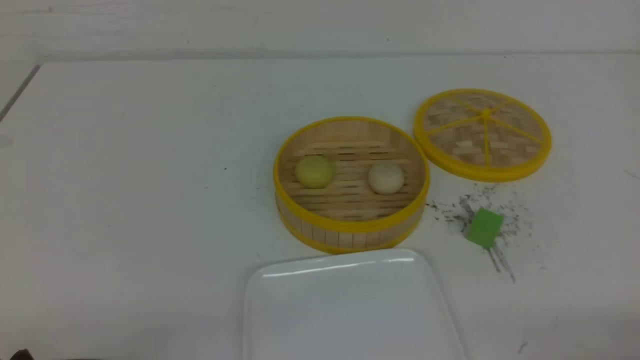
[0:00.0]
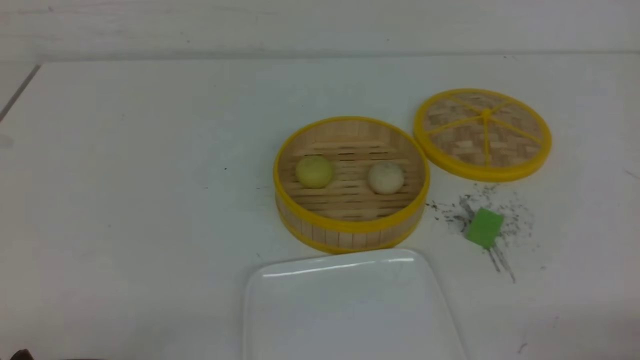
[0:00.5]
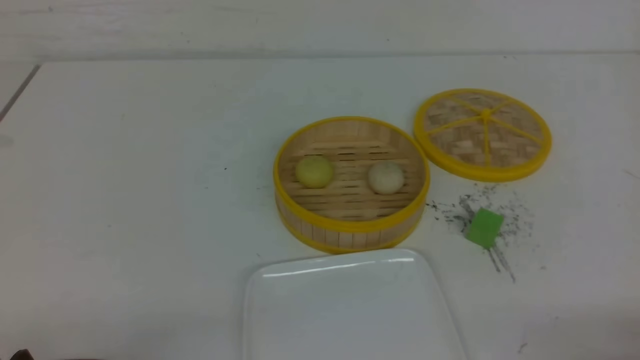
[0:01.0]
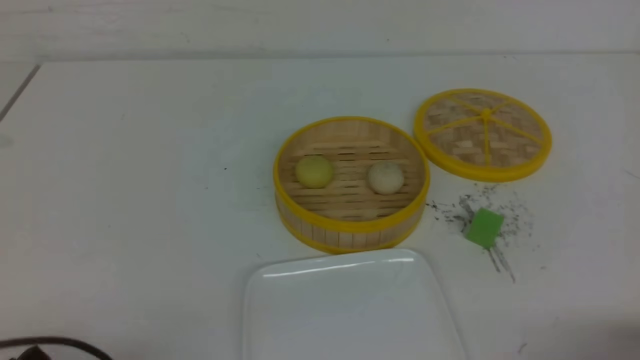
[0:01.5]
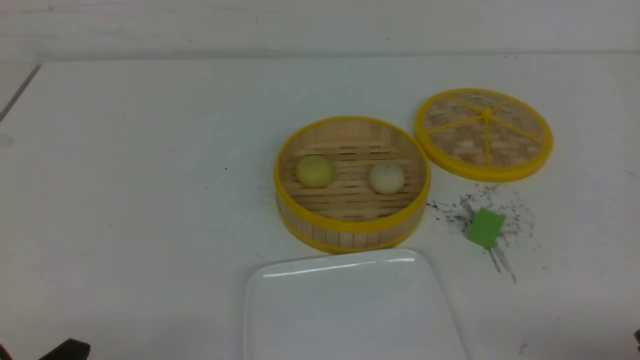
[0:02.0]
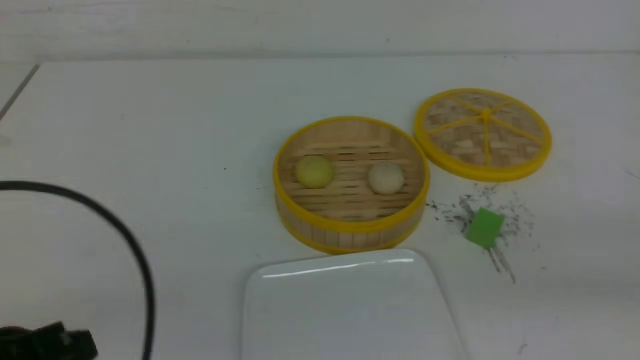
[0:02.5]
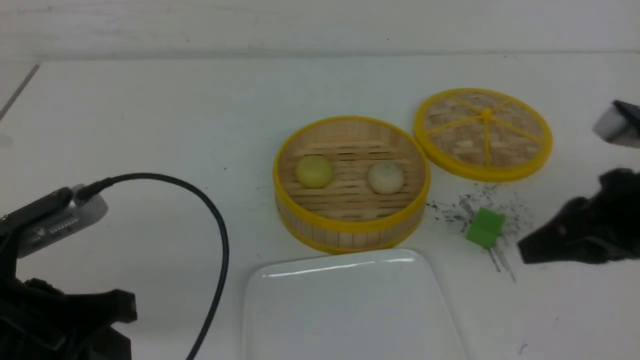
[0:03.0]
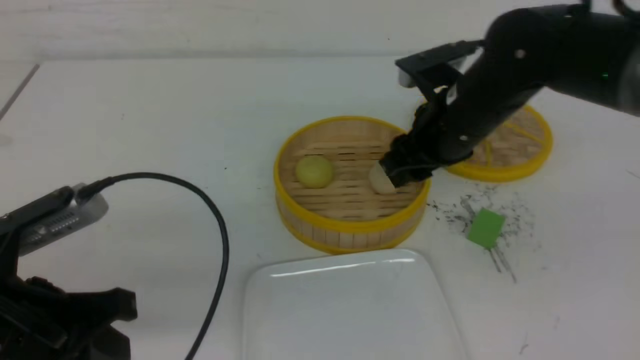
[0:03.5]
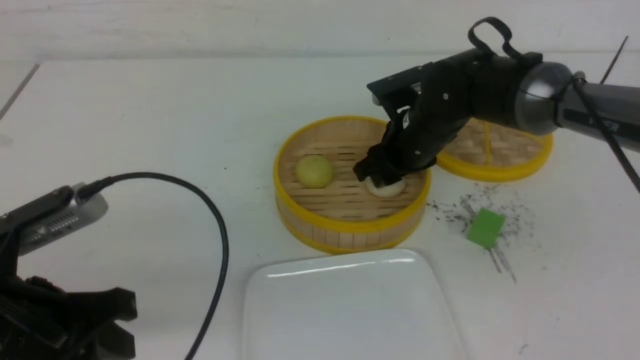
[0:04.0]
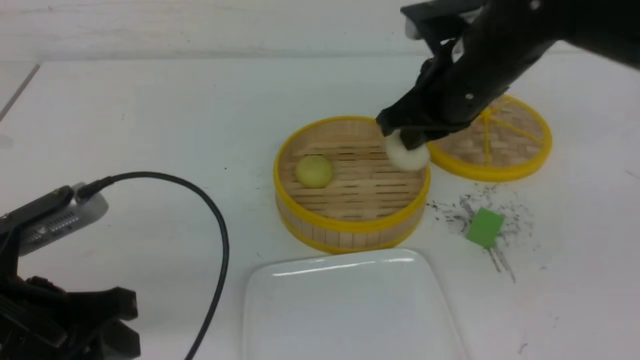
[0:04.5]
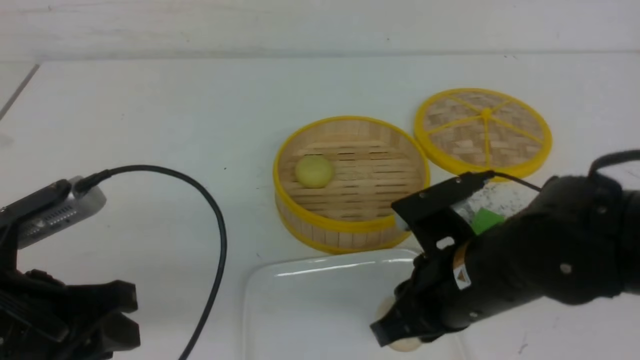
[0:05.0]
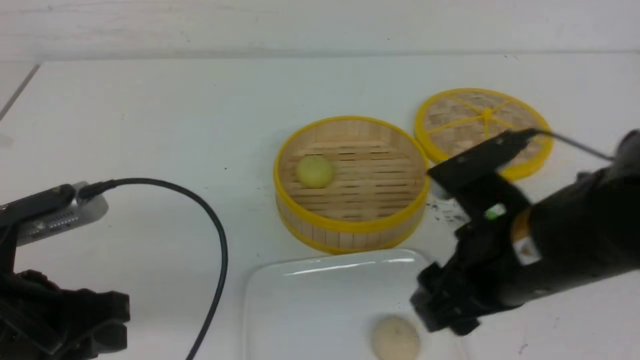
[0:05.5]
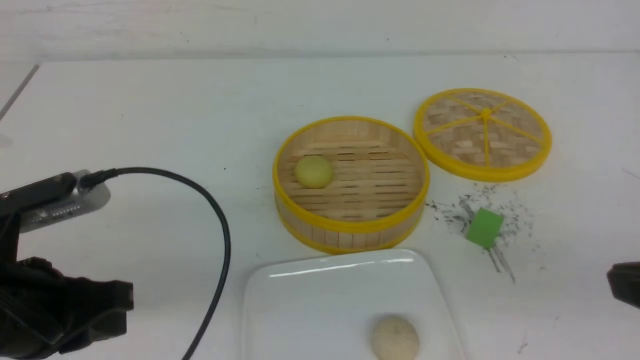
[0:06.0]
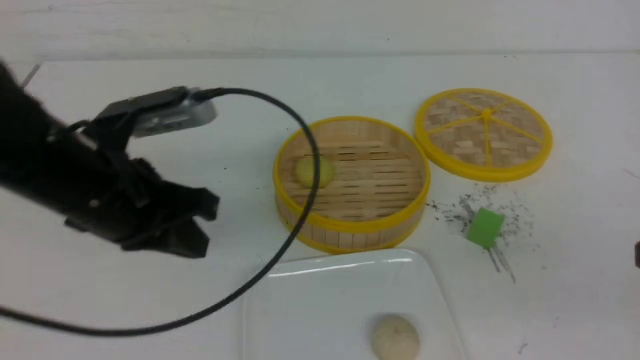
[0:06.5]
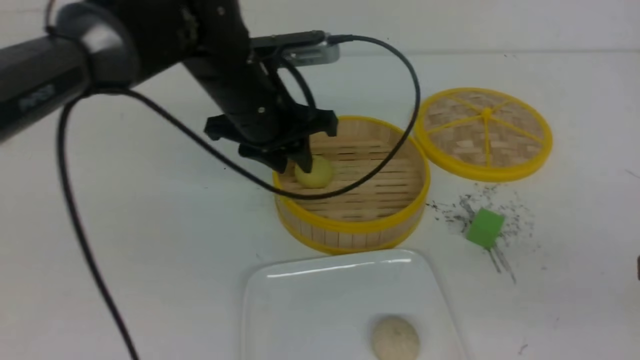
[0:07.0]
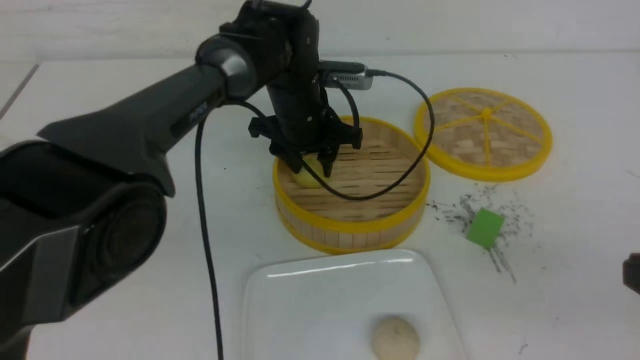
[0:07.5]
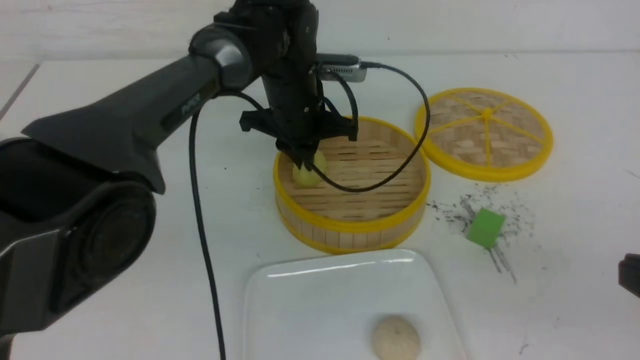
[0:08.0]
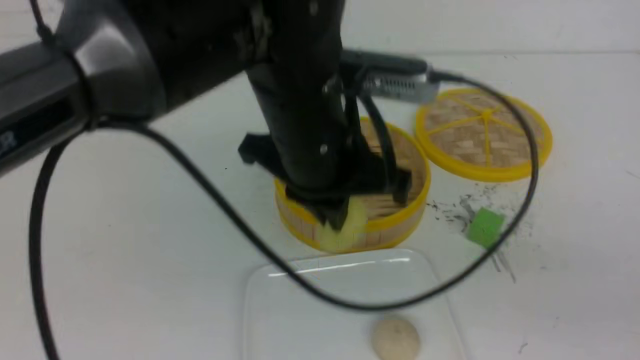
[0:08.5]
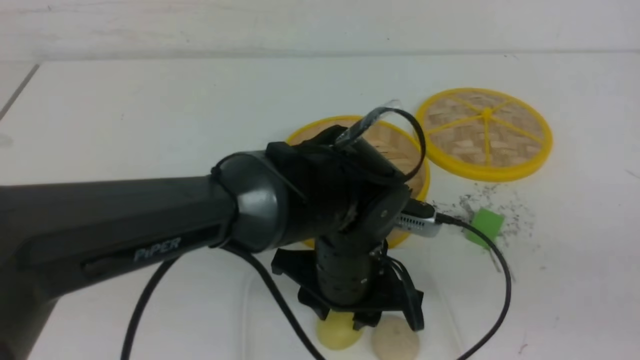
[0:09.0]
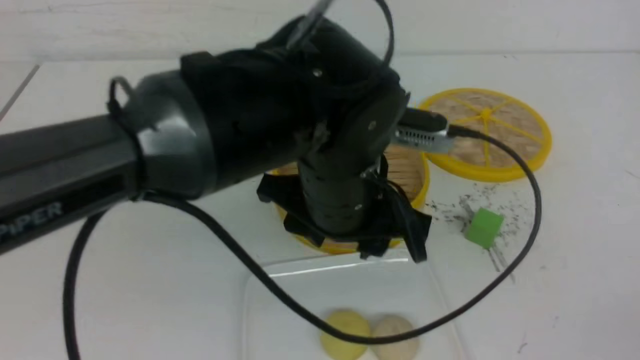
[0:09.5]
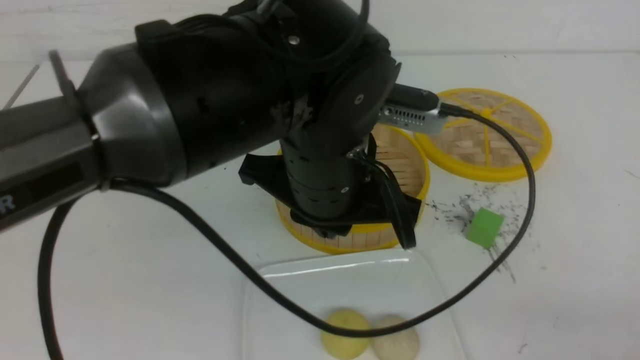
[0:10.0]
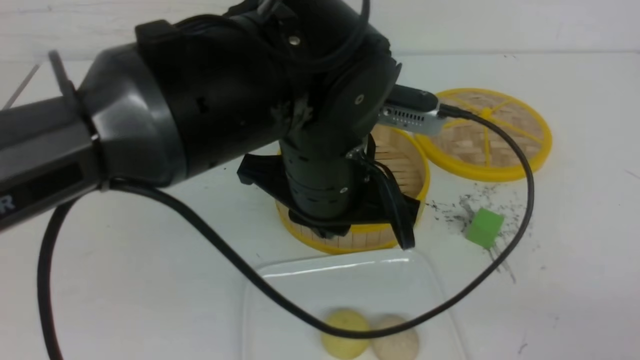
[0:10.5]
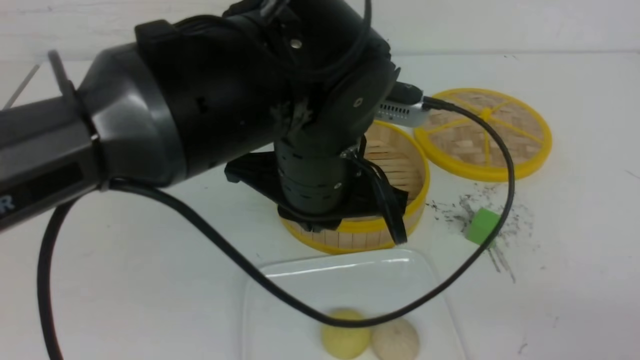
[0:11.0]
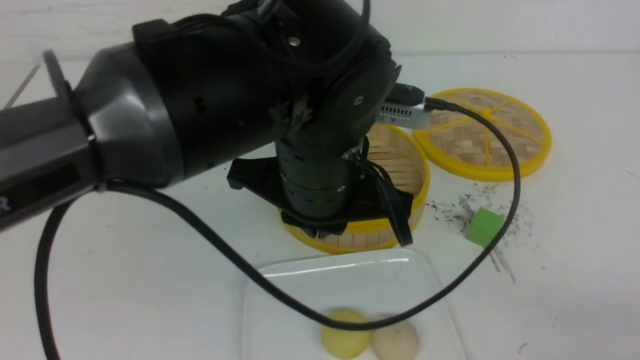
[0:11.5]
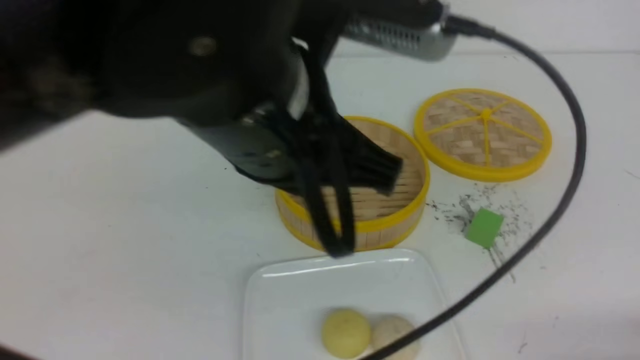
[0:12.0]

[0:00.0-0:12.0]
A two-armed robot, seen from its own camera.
Step, 0:00.0 to 0:04.0: use the right arm to grab the steamed stuffed bun that is closest to it.
Step, 0:04.5 to 0:05.0: use the right arm to put the steamed stuffed bun into the plate.
Step, 0:05.5 to 0:07.5: use the left arm to grab the steamed stuffed bun that is closest to it.
Step, 0:08.0 to 0:09.0: use the left arm to put the steamed stuffed bun into the plate.
0:02.0 to 0:04.0: The right gripper goes roughly 40 cm forward and to the left, and closes and opens again; the left gripper travels forward and upward by some 10 cm, and closes and opens again.
0:04.0 to 0:06.0: The right gripper travels backward and to the right by about 35 cm, and closes.
0:06.0 to 0:08.0: The left gripper heads forward and to the right, covering some 35 cm, and opens, then closes again.
0:08.0 to 0:10.0: The right gripper heads backward, covering about 5 cm; the left gripper moves backward, approximately 20 cm, and opens and closes again.
0:10.0 to 0:12.0: The left gripper shifts roughly 10 cm upward and backward; the right gripper travels downward by roughly 10 cm.

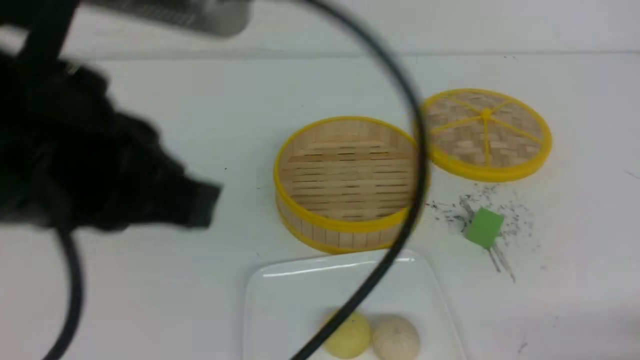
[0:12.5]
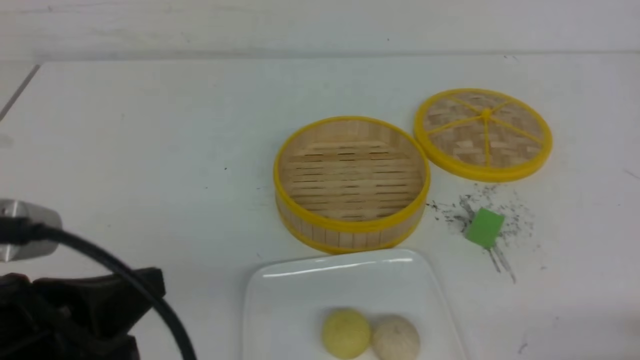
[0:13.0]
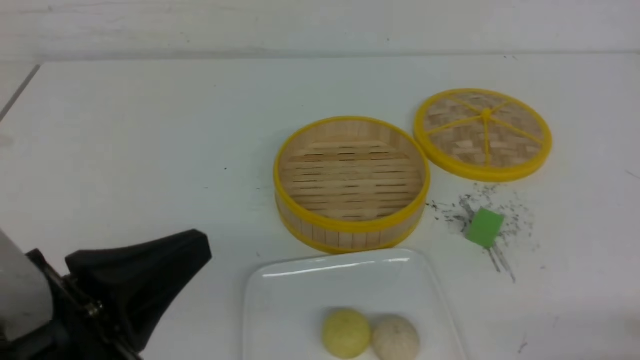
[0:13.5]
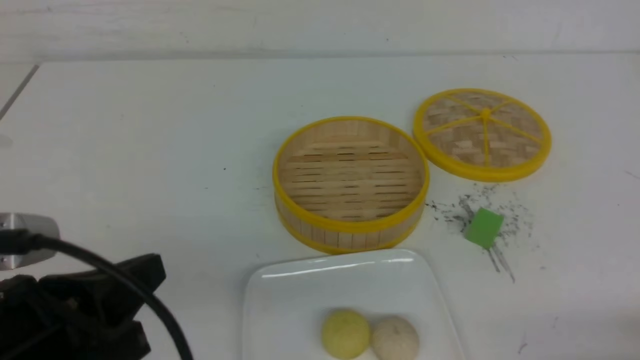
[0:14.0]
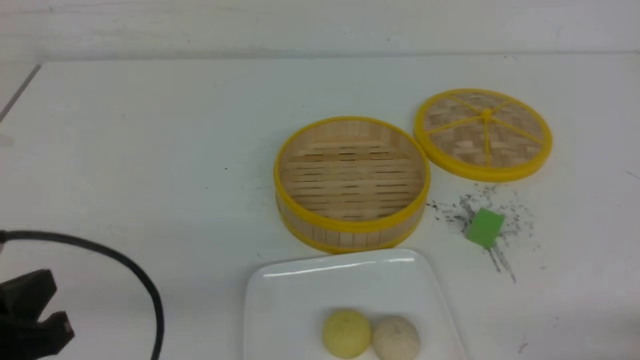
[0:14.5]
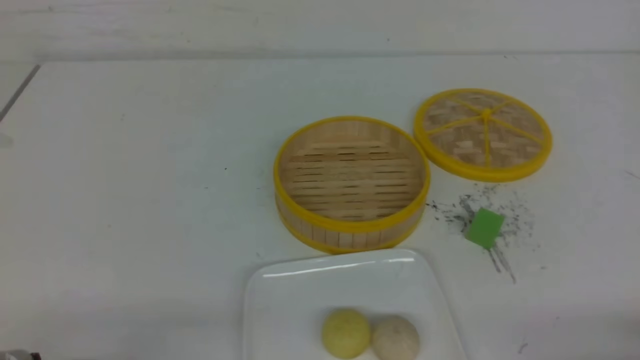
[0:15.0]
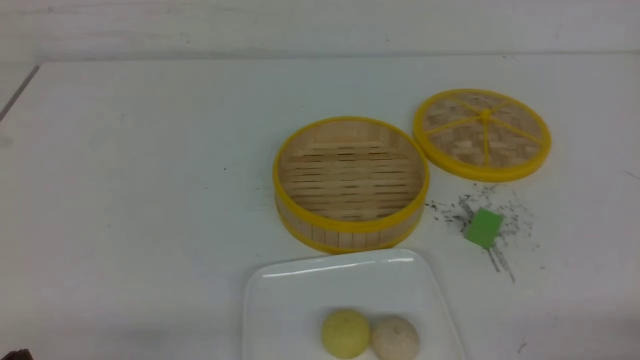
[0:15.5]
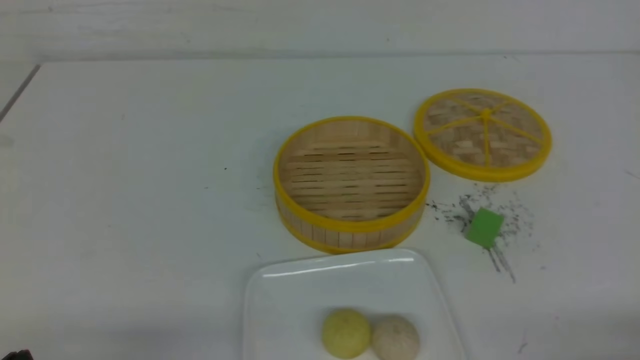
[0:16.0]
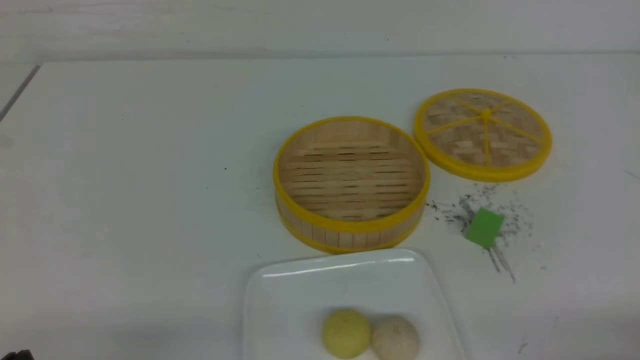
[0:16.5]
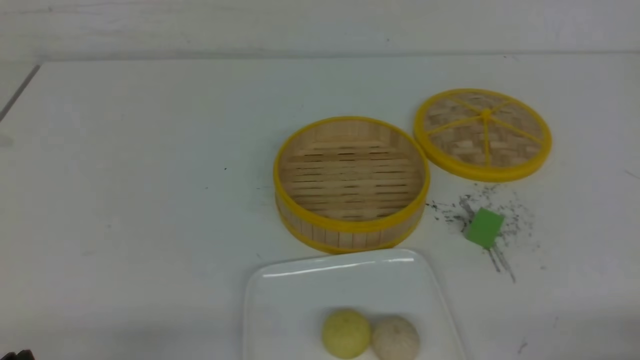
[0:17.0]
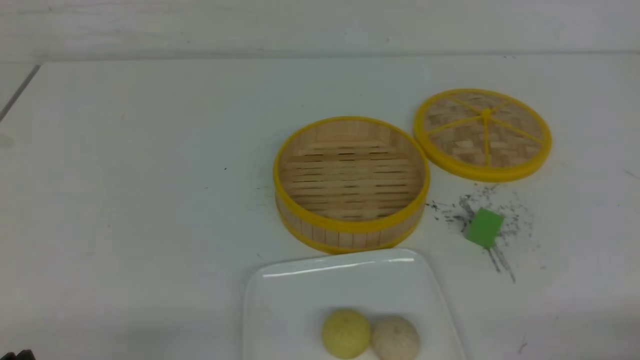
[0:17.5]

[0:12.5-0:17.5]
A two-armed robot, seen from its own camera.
0:12.5 to 0:15.0: The left gripper moves downward and to the left, roughly 25 cm.

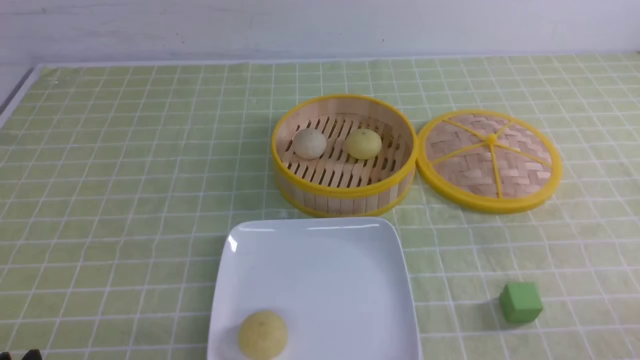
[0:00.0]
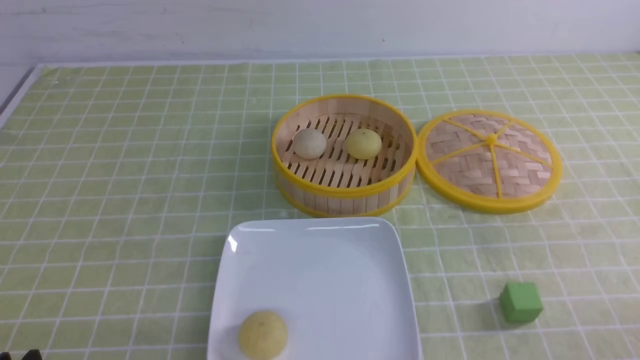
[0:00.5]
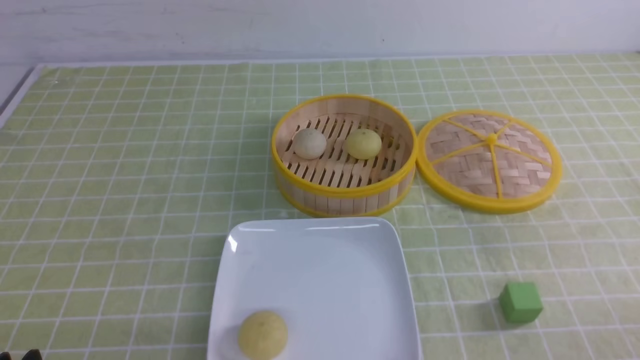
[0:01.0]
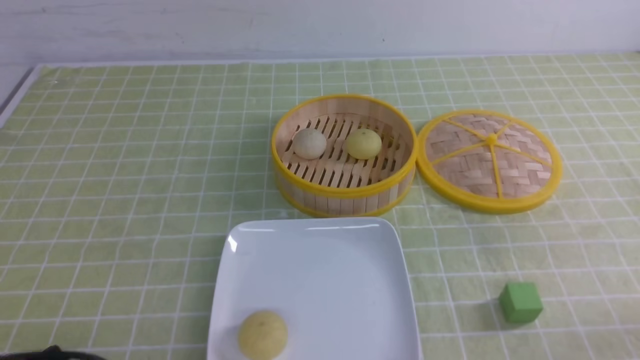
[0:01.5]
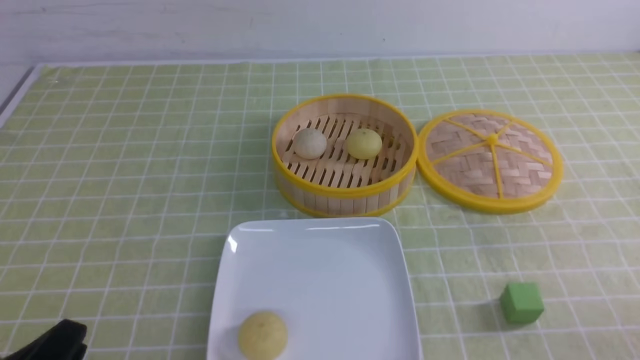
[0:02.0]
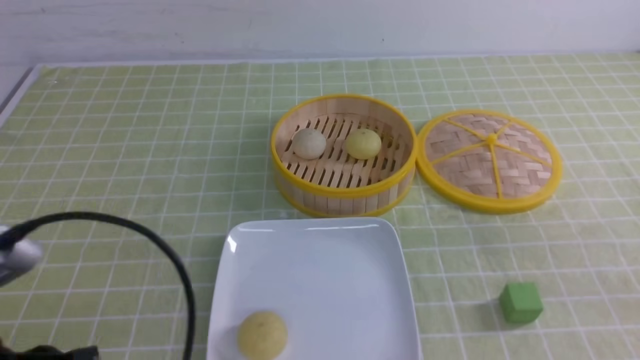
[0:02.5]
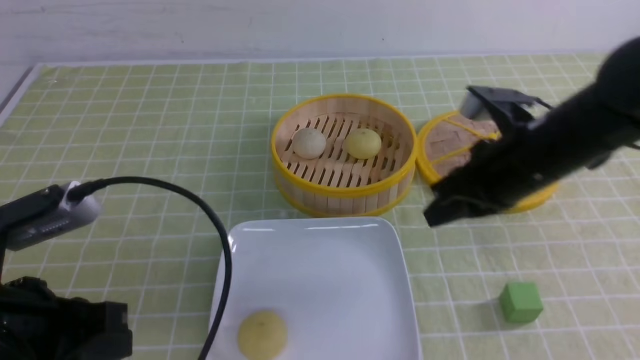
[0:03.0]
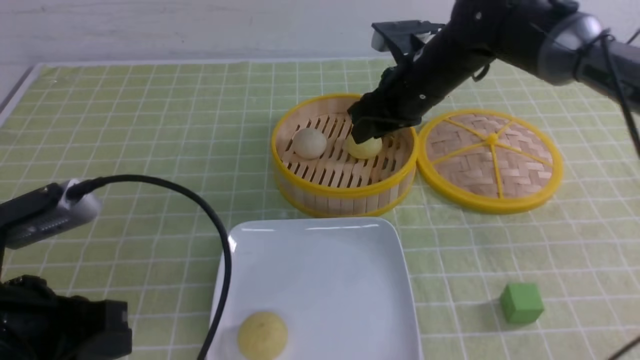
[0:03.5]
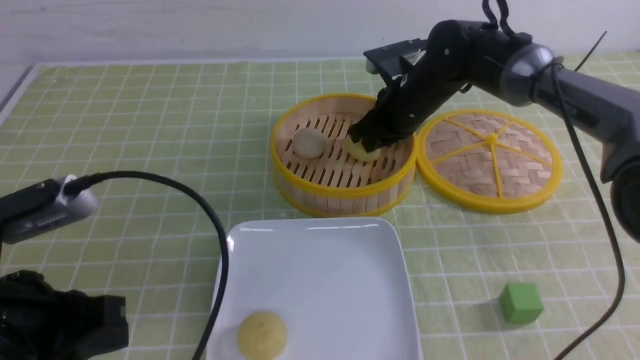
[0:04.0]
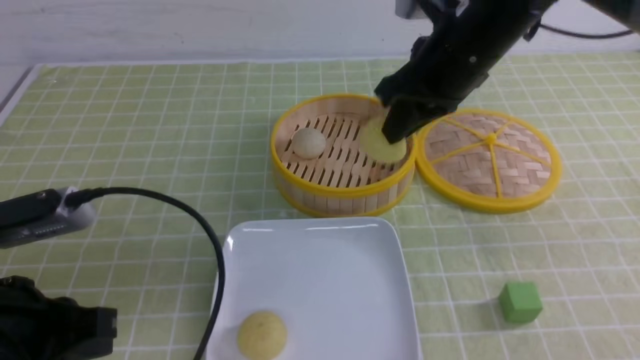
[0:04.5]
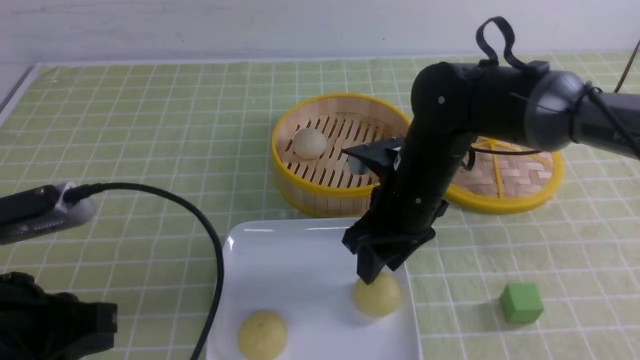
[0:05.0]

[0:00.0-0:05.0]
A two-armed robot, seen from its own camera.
Step, 0:00.0 to 0:04.0: use the right arm to grab the steamed stuffed bun that is closest to it.
Step, 0:04.5 to 0:05.0: use the right arm to put the steamed stuffed bun into the plate.
0:00.0 to 0:02.5: The left gripper heads upward, covering about 10 cm, and closes up.
0:02.5 to 0:05.0: The right gripper goes approximately 30 cm to the left and forward, and opens its fingers. The left gripper shifts about 5 cm forward.
